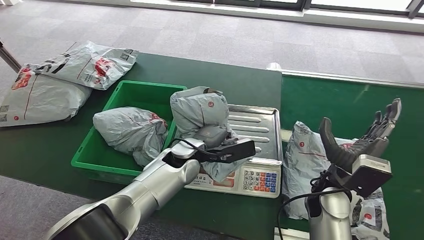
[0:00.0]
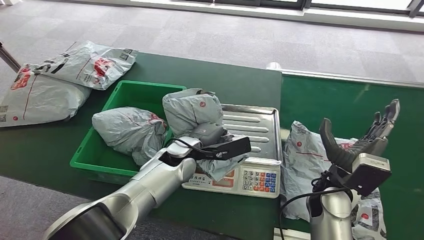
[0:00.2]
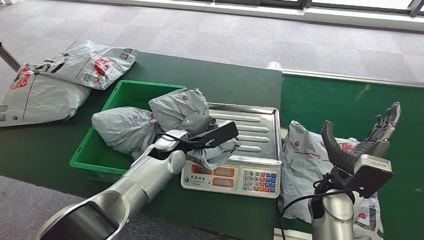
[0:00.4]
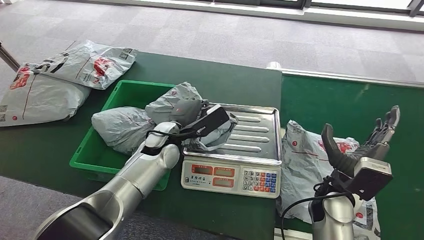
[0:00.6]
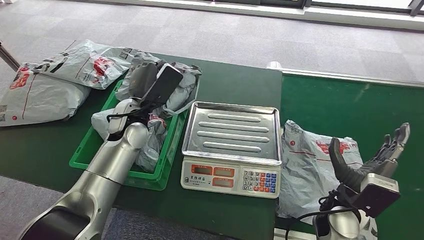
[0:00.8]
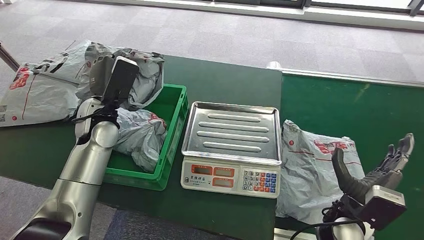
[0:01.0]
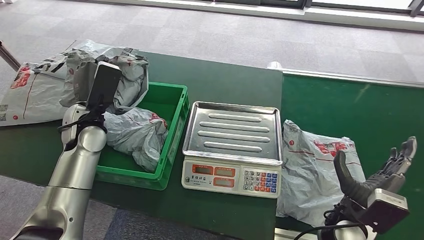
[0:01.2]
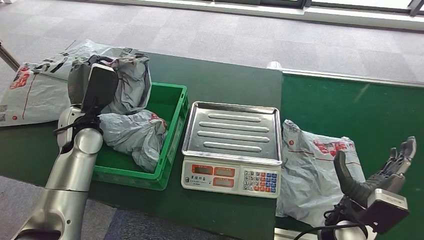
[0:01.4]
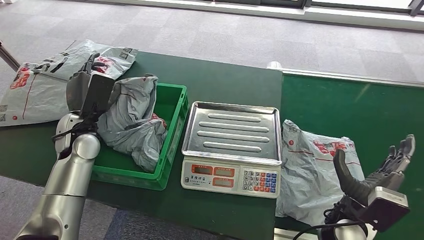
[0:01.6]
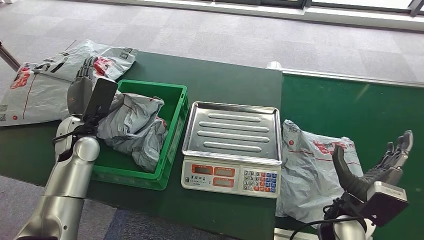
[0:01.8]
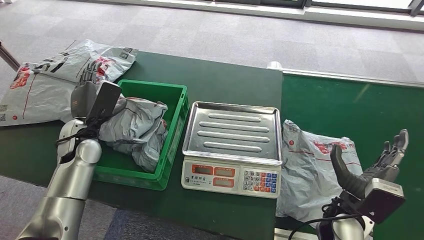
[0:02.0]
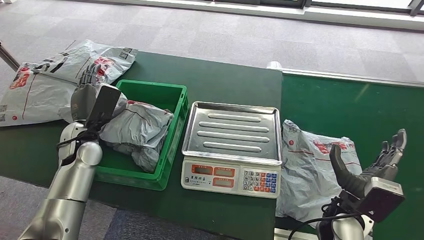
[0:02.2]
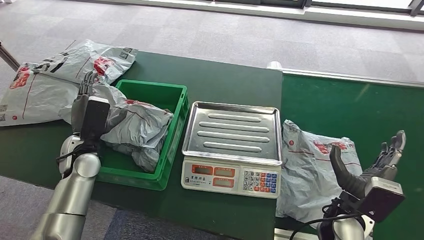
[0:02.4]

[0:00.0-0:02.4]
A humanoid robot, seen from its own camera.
Step, 0:00.2 to 0:01.0: Pick up the package from the inbound machine.
Step, 0:01.2 to 0:02.4: Place the package into the parcel locker.
0:01.2 to 0:02.4: The left hand travels downward by approximately 5 cm.
